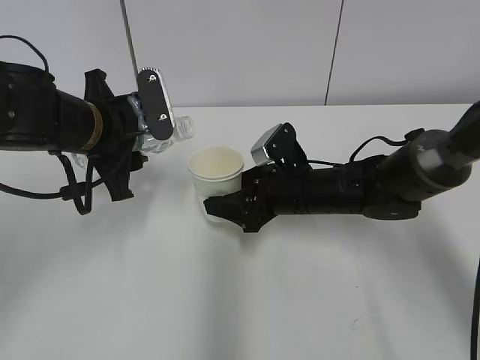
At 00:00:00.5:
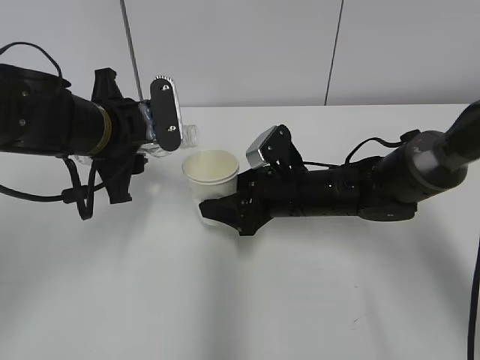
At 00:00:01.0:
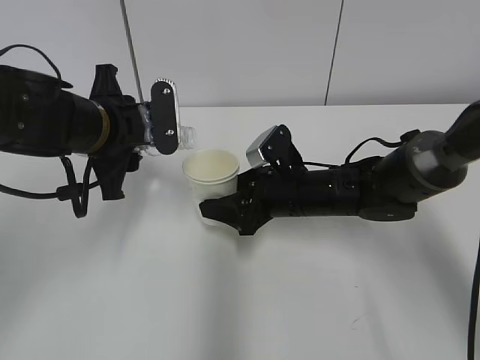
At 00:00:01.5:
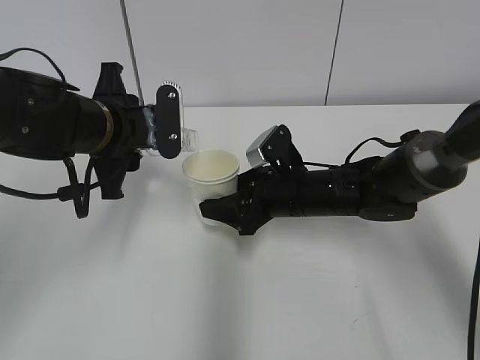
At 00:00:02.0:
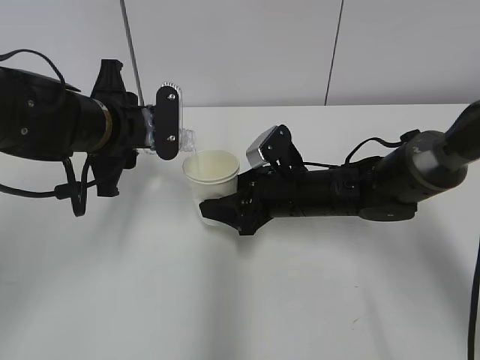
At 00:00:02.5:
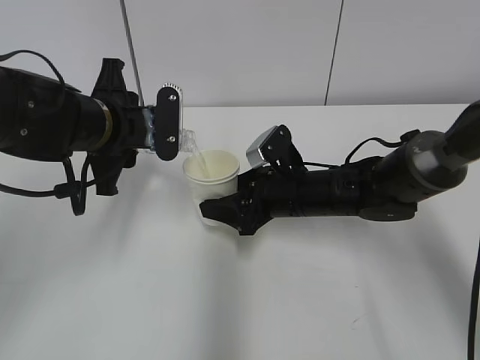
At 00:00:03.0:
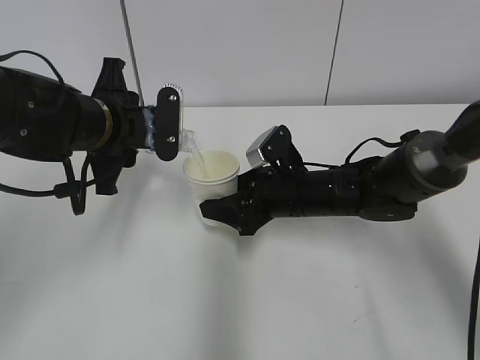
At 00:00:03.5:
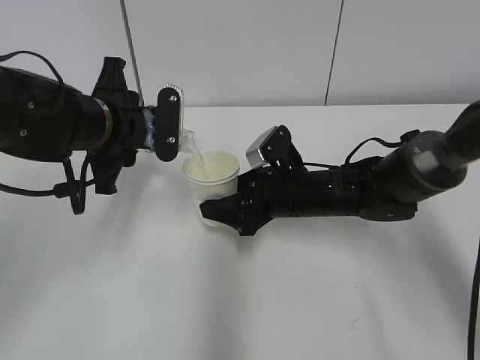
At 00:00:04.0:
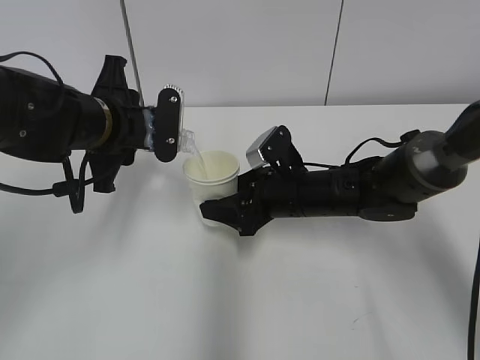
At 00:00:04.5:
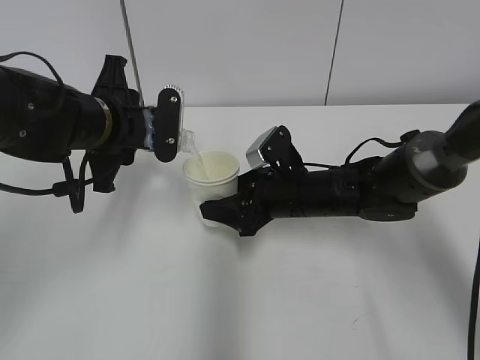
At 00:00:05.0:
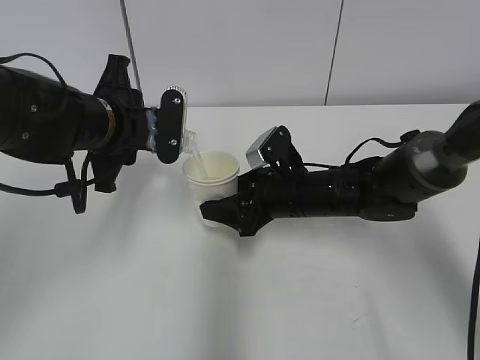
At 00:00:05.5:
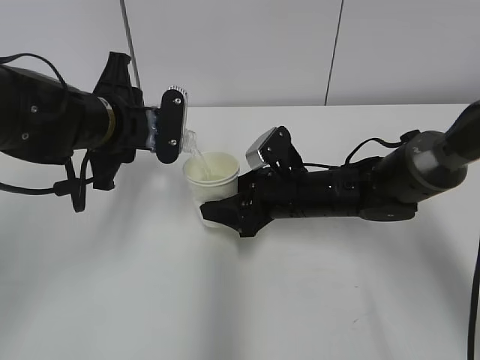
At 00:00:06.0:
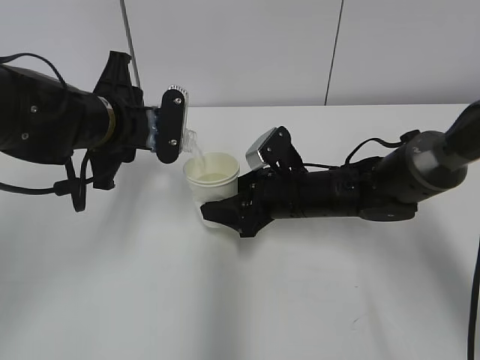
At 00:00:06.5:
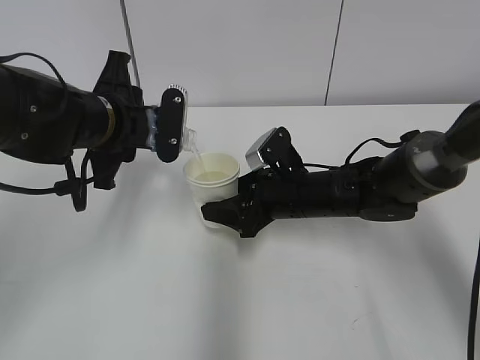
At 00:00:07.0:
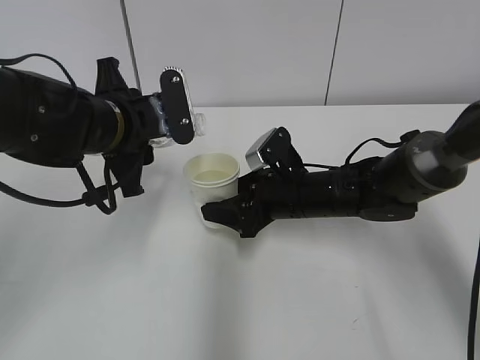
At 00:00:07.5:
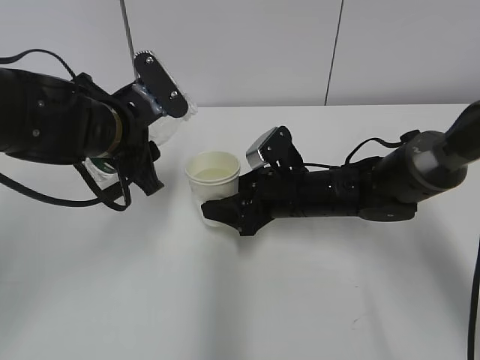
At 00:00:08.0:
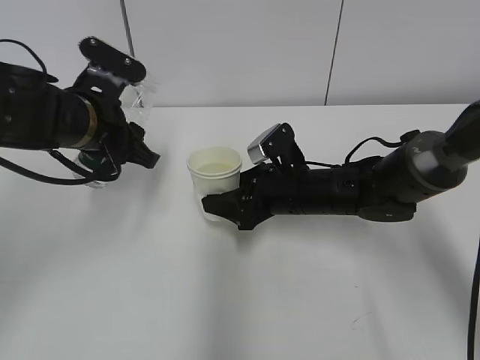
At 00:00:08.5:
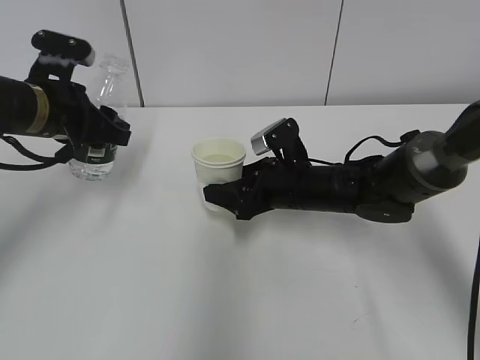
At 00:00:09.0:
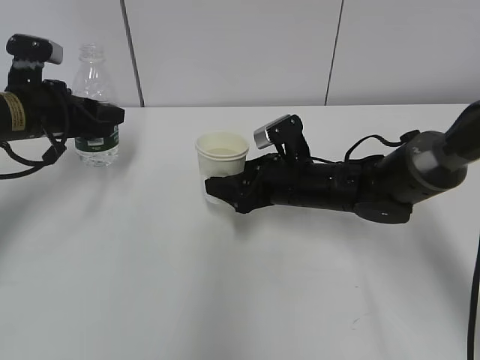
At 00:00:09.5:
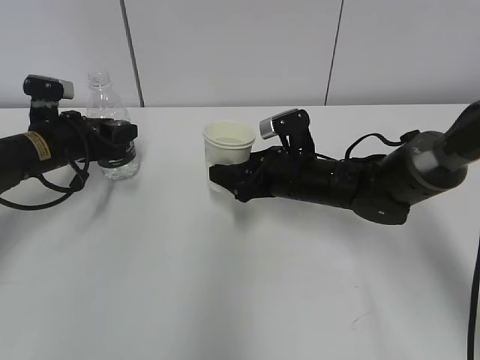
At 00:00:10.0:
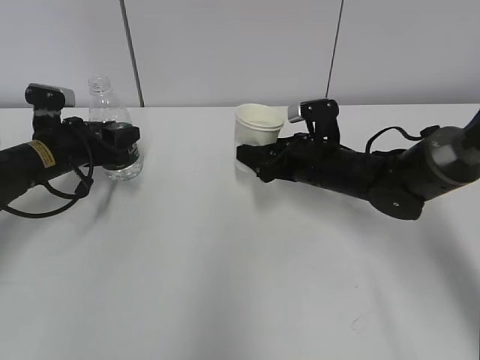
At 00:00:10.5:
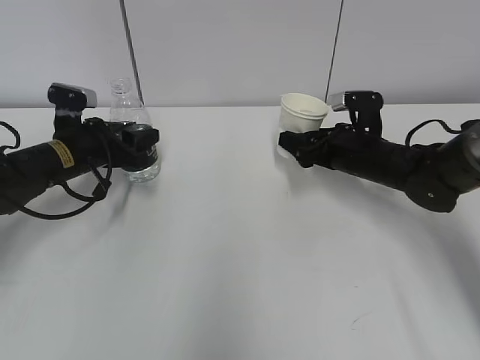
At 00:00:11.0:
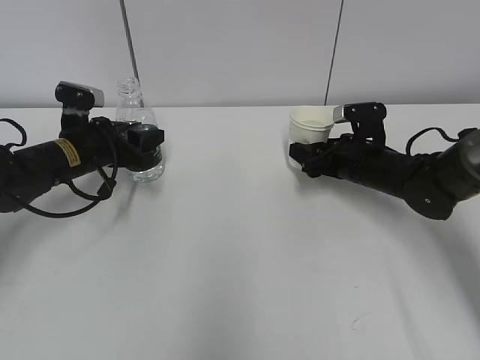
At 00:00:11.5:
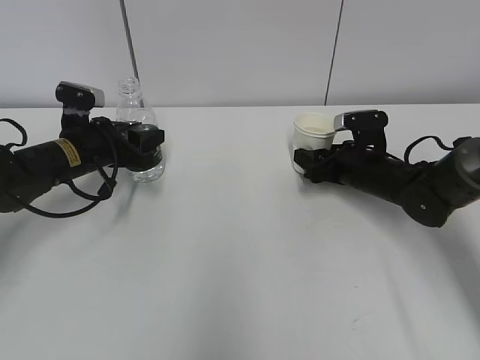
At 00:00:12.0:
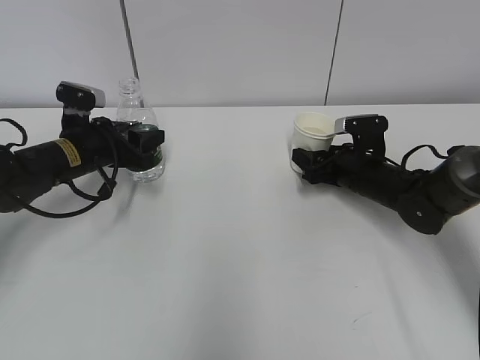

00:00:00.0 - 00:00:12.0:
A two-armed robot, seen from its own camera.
Step, 00:00:00.0 - 00:00:02.5: Fill water with the right hand.
Step, 00:00:00.0 - 00:00:02.5: Pour water with the left hand.
Step, 00:00:03.0 - 00:00:04.5: Collect water with the left hand.
Step, 00:00:08.0 - 00:00:09.5: Place the water bottle with the left hand.
00:00:00.0 - 00:00:02.0: The grippers move only a little.
00:00:02.0 - 00:00:04.0: Both grippers stay about where they are.
00:00:04.0 - 00:00:06.0: The two grippers keep their place.
00:00:08.0 - 00:00:10.0: The right gripper moves roughly 5 cm; the left gripper moves downward, to the left and forward, some 15 cm.
00:00:10.0 - 00:00:12.0: The right gripper is displaced to the right by roughly 5 cm.

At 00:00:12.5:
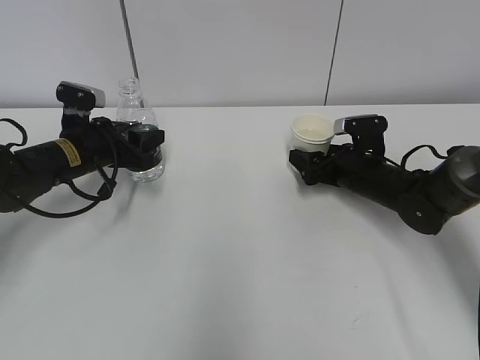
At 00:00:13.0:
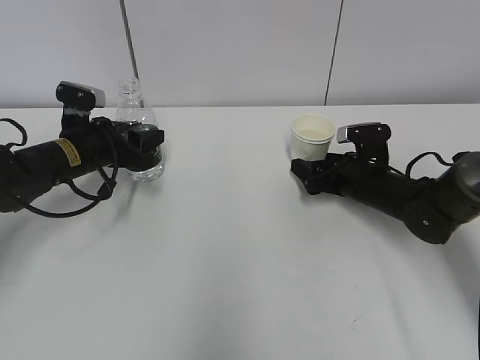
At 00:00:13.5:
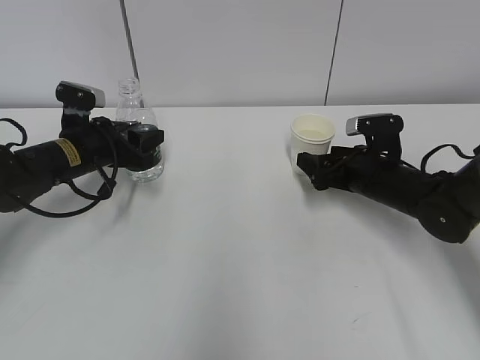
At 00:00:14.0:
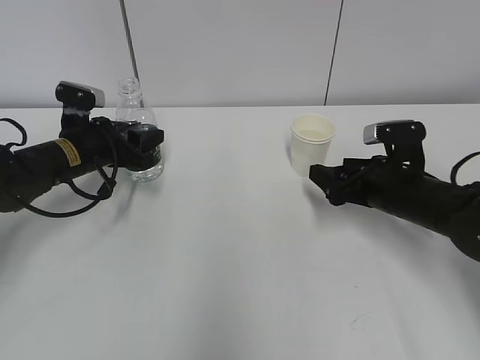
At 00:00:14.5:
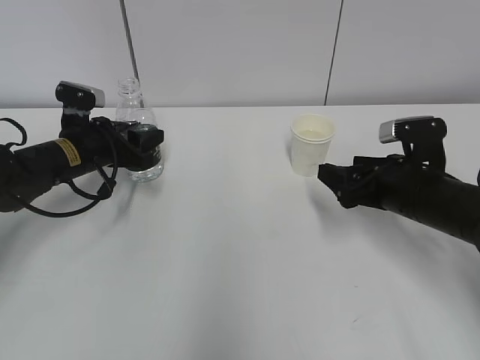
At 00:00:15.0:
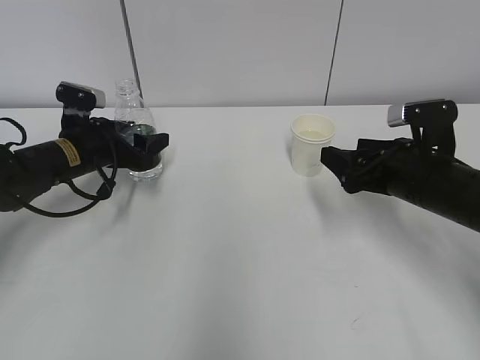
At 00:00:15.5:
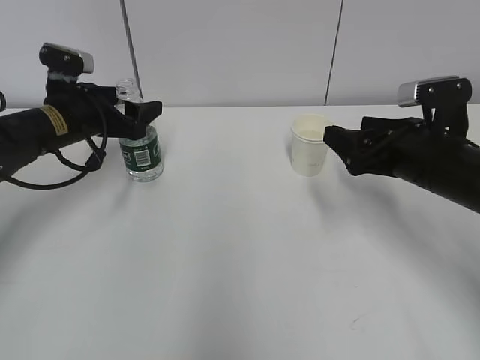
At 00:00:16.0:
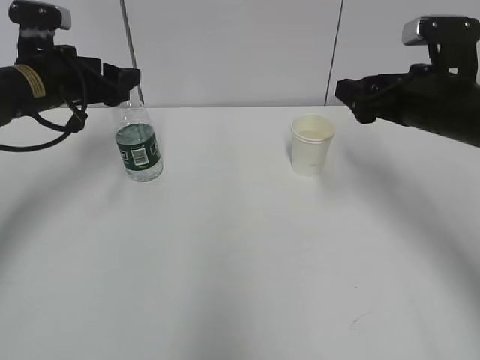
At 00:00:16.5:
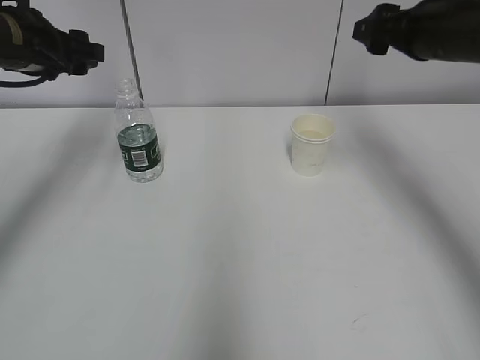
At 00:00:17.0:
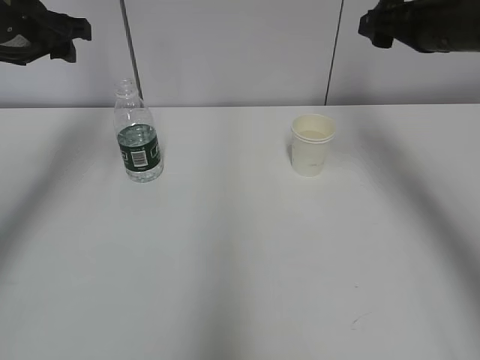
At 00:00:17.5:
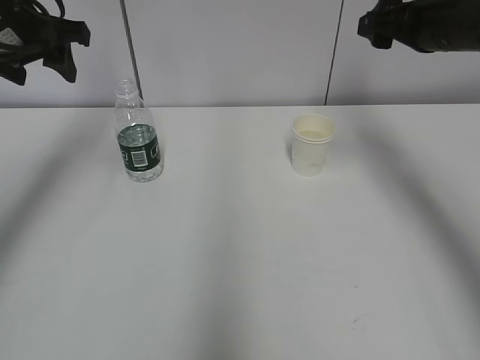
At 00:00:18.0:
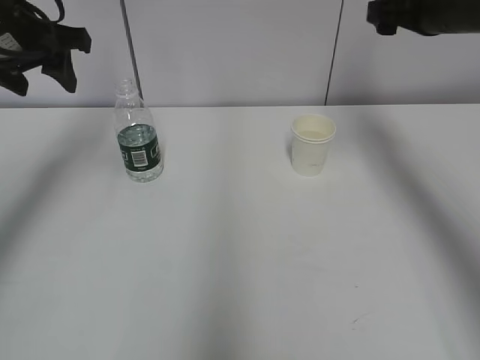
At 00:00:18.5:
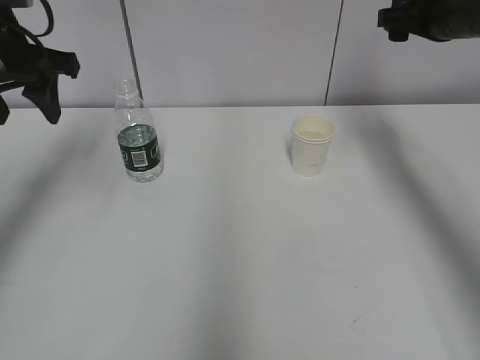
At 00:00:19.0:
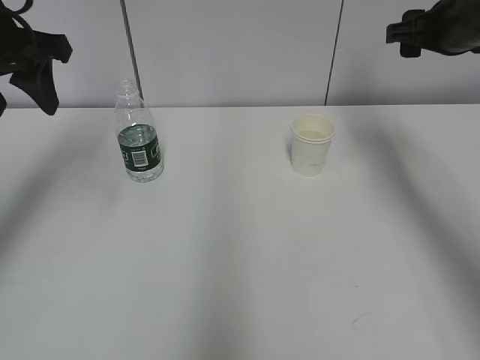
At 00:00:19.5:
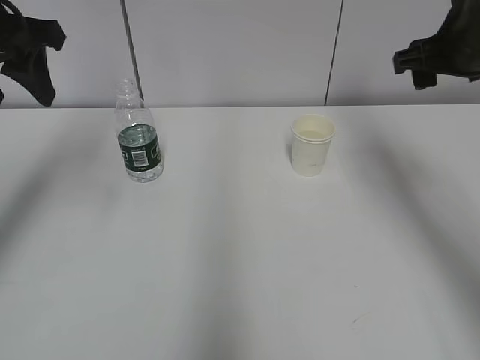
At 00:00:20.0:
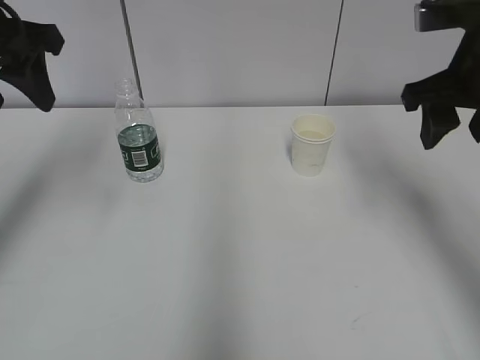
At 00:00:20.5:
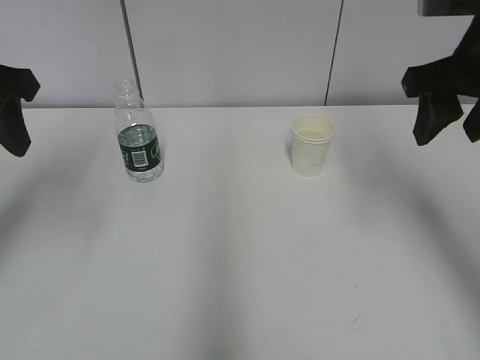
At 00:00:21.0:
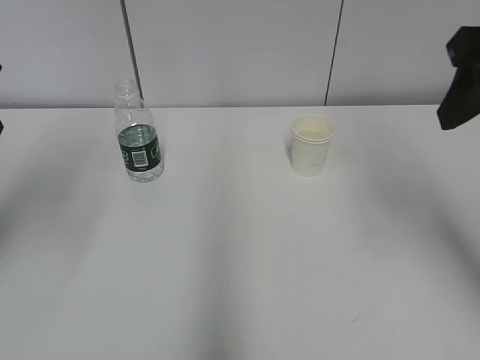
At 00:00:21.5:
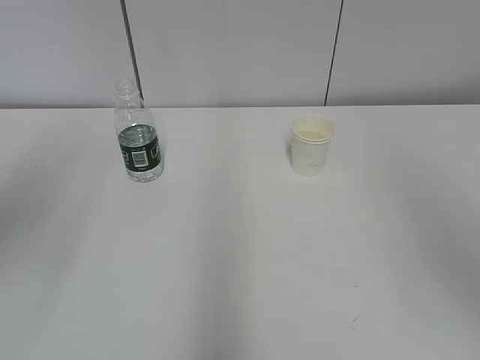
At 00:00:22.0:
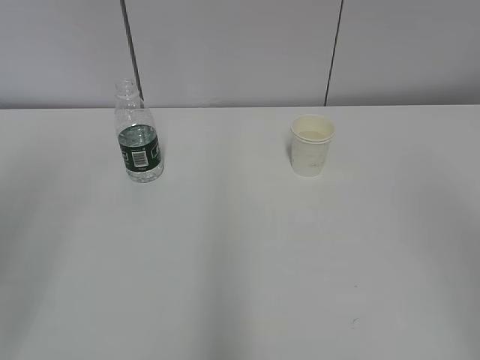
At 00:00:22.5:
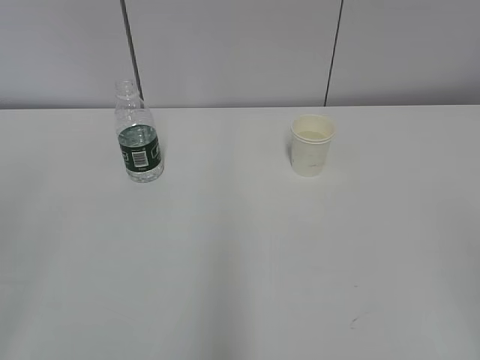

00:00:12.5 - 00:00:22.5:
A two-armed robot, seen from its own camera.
00:00:12.5 - 00:00:14.5: The right gripper moves backward and upward, roughly 10 cm.
00:00:14.5 - 00:00:16.5: The right gripper is displaced upward and forward by roughly 20 cm, while the left gripper moves upward, roughly 15 cm, and opens its fingers.
00:00:16.5 - 00:00:18.5: The left gripper changes place by approximately 5 cm.
00:00:18.5 - 00:00:20.5: Both grippers travel together backward, approximately 10 cm. The right gripper closes its fingers.
00:00:20.5 - 00:00:22.5: The grippers both shift backward by approximately 30 cm.

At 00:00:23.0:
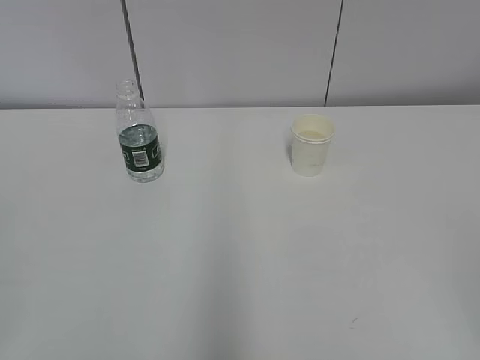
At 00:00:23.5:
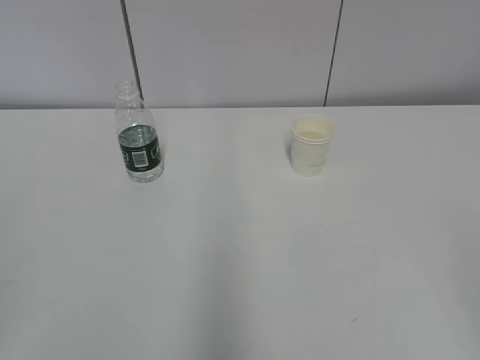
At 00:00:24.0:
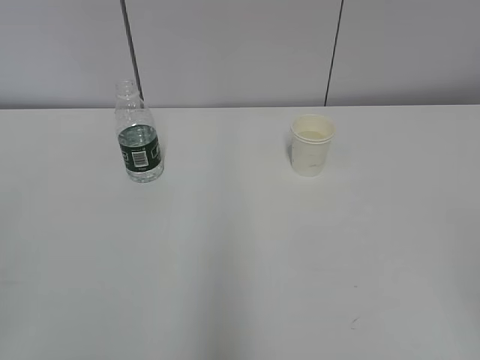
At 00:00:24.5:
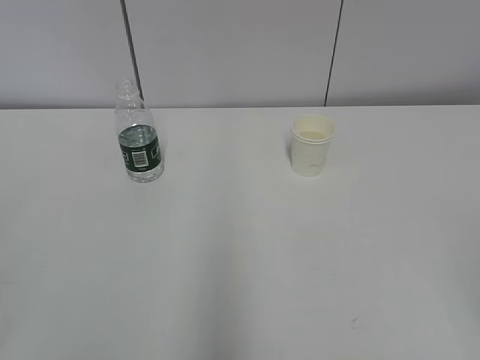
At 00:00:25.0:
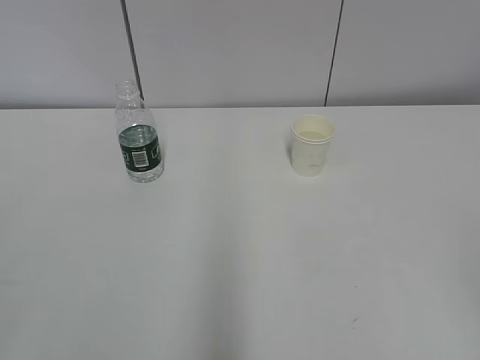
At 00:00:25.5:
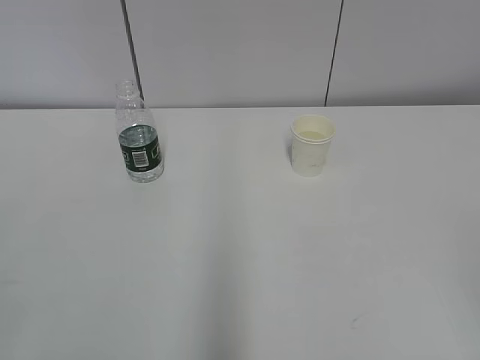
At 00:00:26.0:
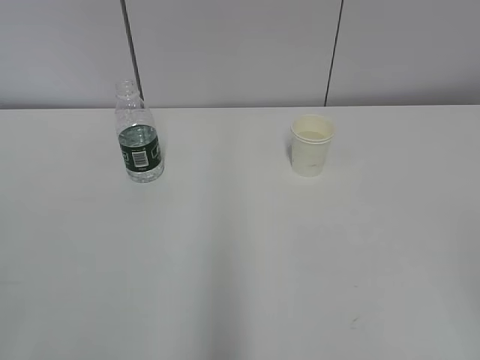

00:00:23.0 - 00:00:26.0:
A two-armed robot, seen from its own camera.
00:00:24.5 - 00:00:26.0: Neither gripper changes place.
